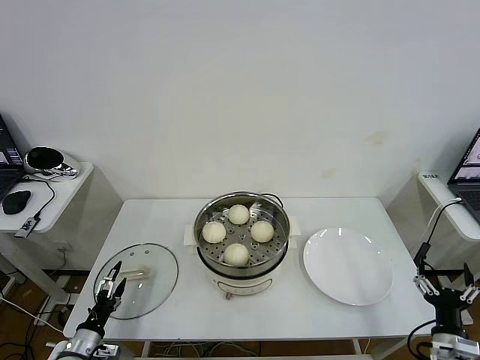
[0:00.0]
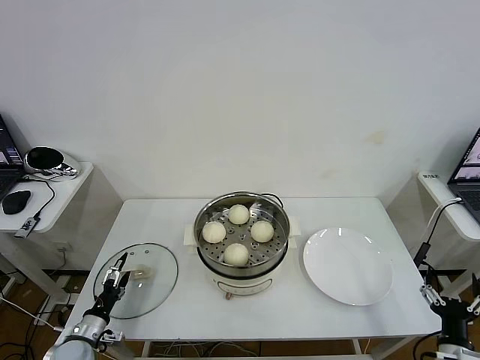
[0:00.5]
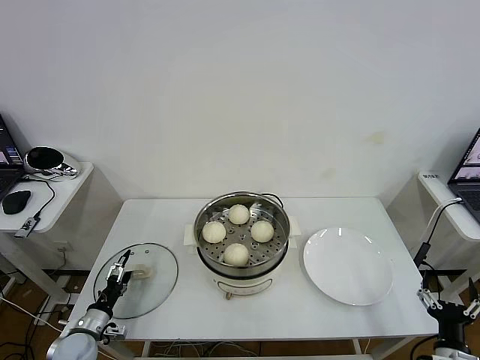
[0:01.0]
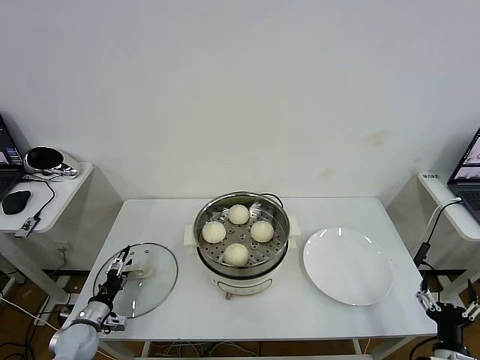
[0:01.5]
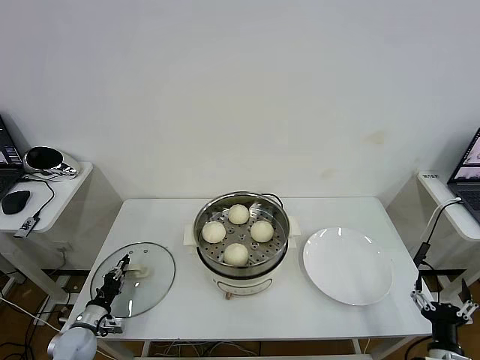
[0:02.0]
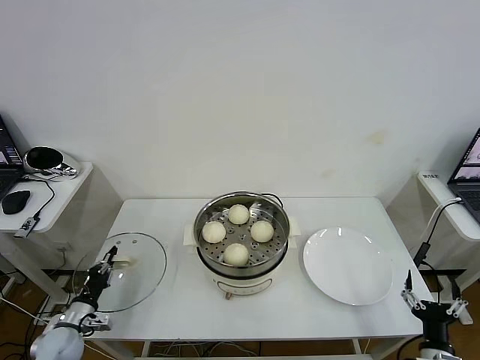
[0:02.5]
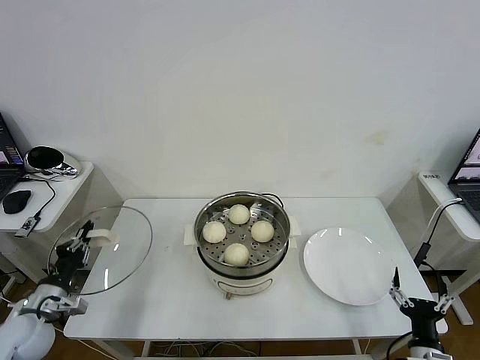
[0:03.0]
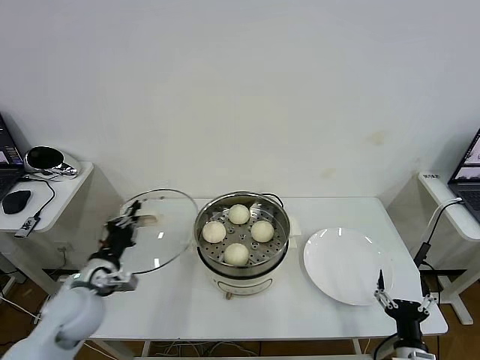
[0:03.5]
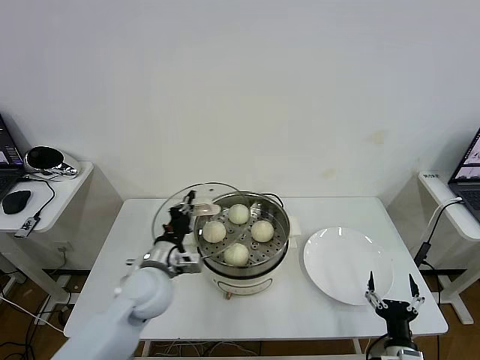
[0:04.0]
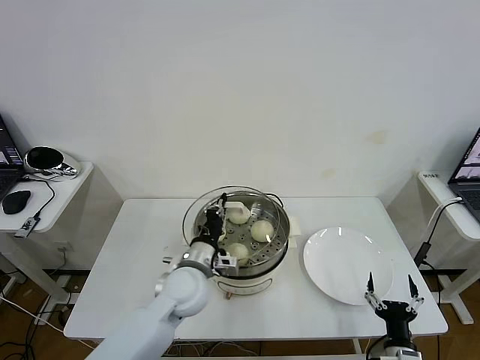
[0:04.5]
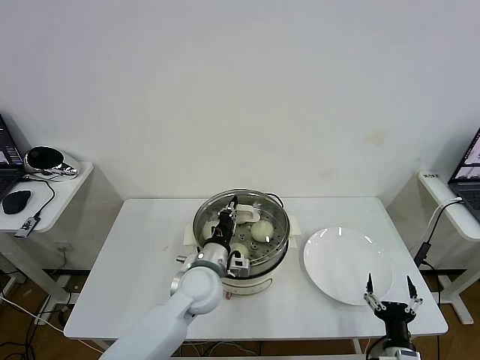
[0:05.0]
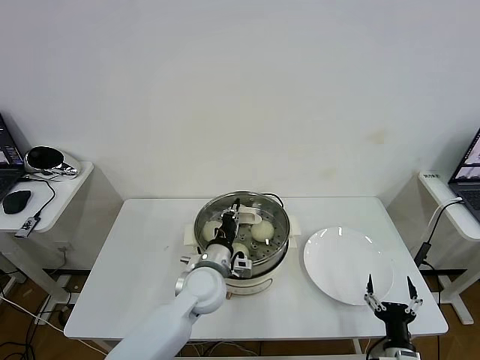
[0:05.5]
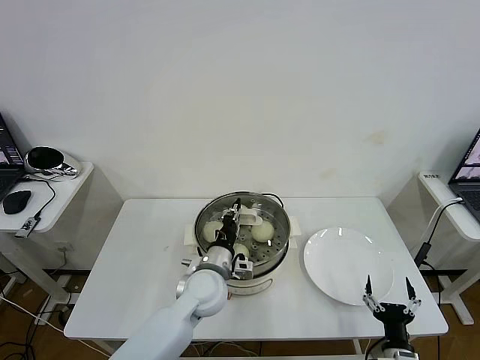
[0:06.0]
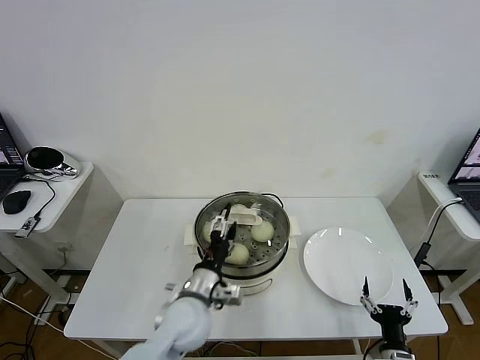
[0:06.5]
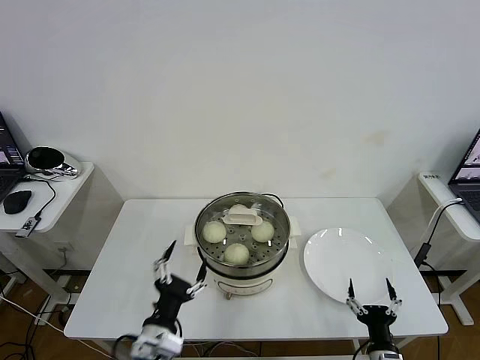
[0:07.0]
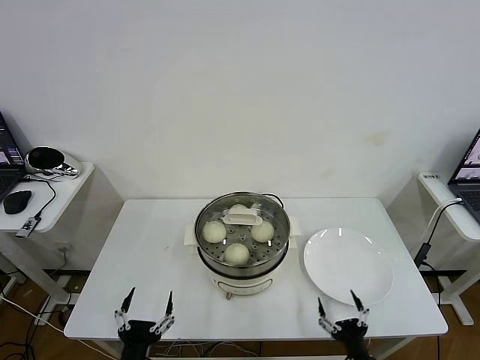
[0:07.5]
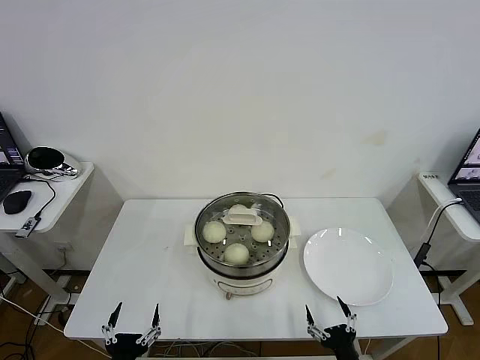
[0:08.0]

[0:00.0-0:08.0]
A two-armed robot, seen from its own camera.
Task of the whole recording: take steamed baozi put them in steamer then cover it.
Step, 0:00.0 to 0:02.0: Grasp the pot lid with left gripper.
Step, 0:02.5 to 0:06.5: Place the pot lid on the steamer with left gripper.
0:00.0 to 0:02.0: The left gripper goes approximately 10 cm forward, and closes its fingers.
0:02.0 to 0:04.0: The left gripper travels to the right and upward by approximately 30 cm; the right gripper shifts roughly 5 cm to the left.
0:04.0 to 0:06.0: The left gripper travels to the right by some 10 cm.
0:06.0 to 0:08.0: The left gripper travels backward and to the left by approximately 30 cm, and opens up. The right gripper moves to the left, about 5 cm.

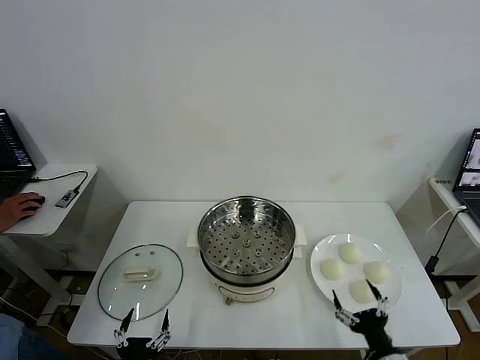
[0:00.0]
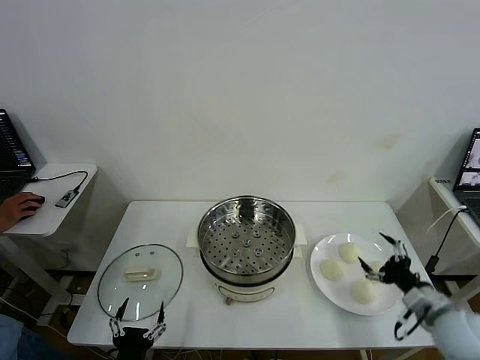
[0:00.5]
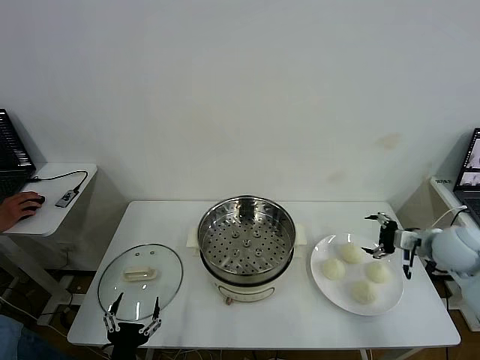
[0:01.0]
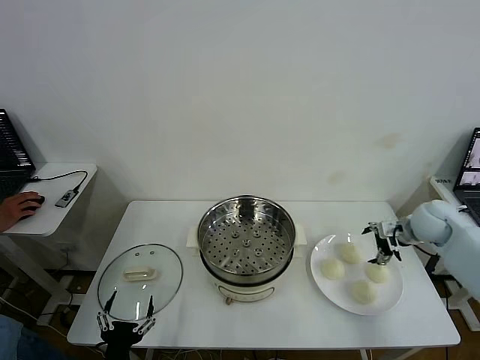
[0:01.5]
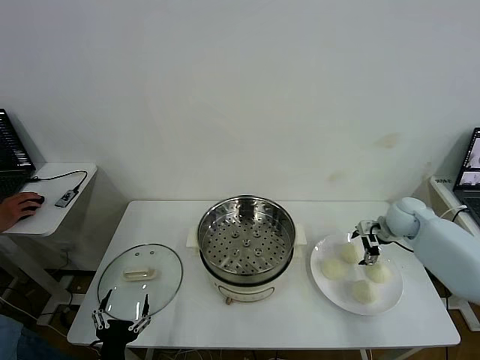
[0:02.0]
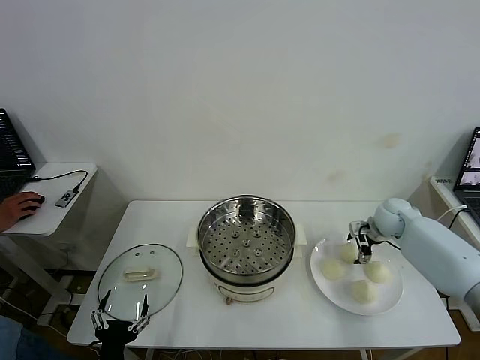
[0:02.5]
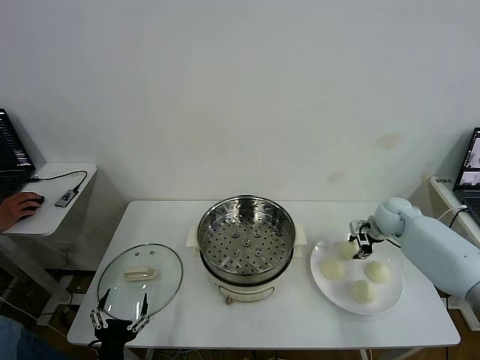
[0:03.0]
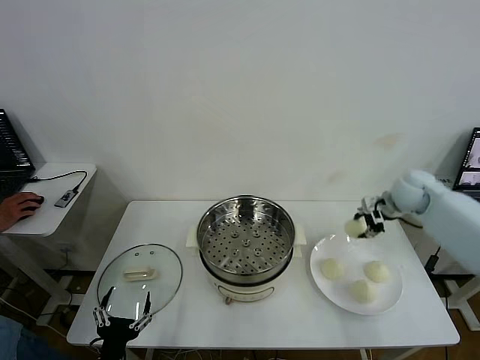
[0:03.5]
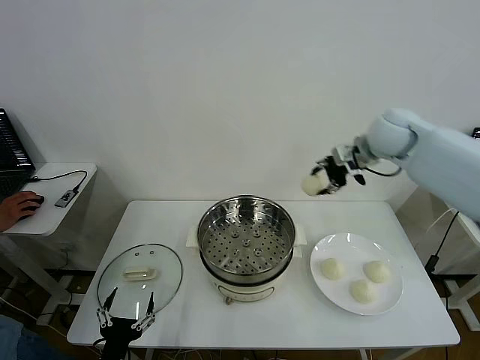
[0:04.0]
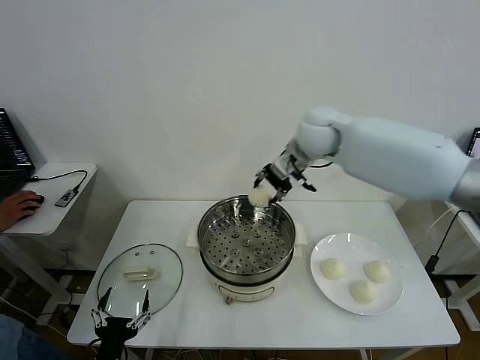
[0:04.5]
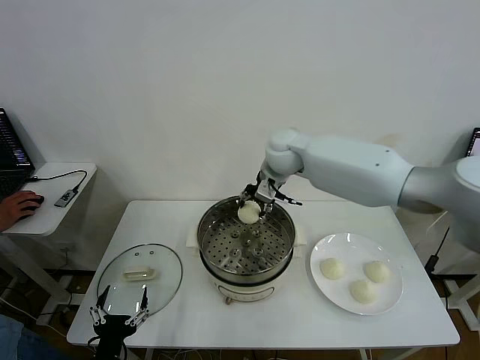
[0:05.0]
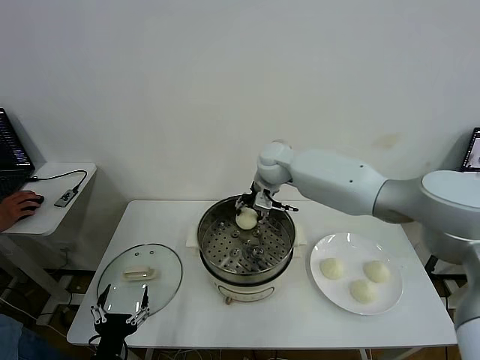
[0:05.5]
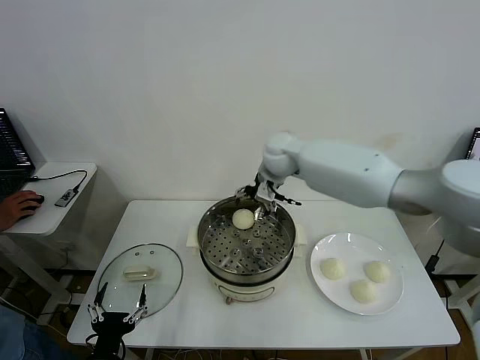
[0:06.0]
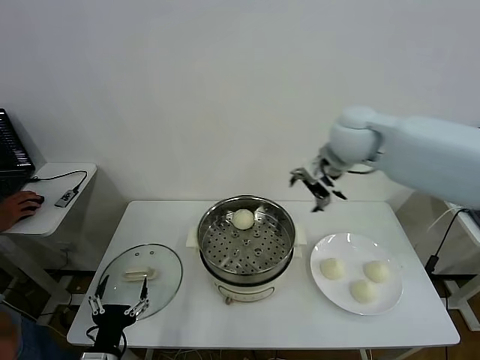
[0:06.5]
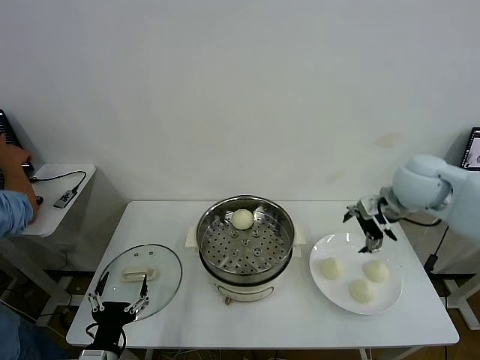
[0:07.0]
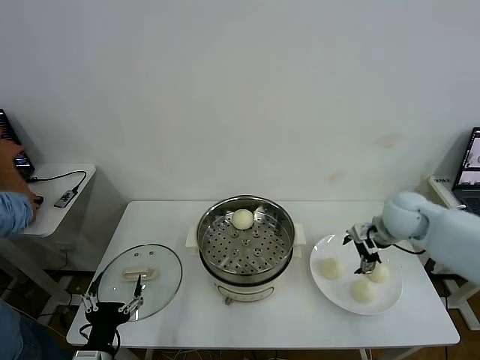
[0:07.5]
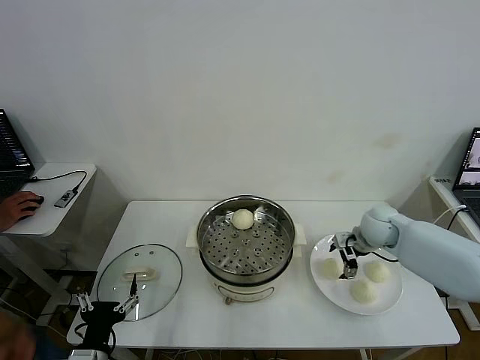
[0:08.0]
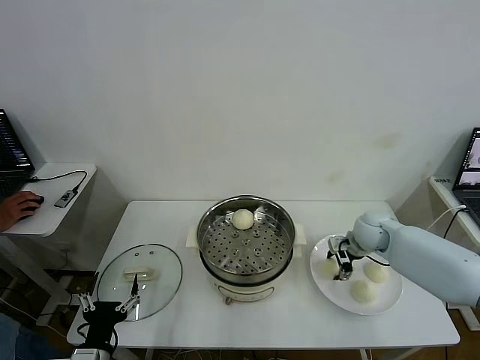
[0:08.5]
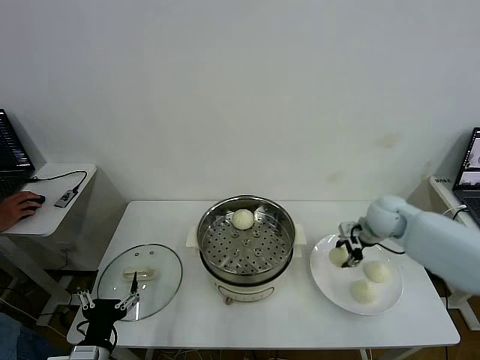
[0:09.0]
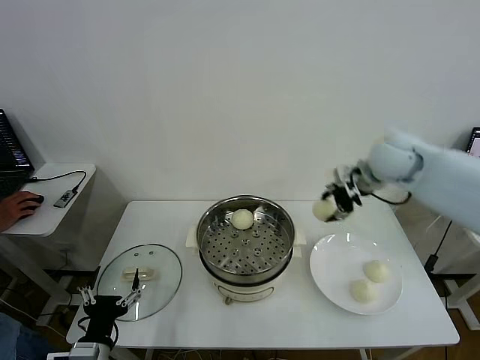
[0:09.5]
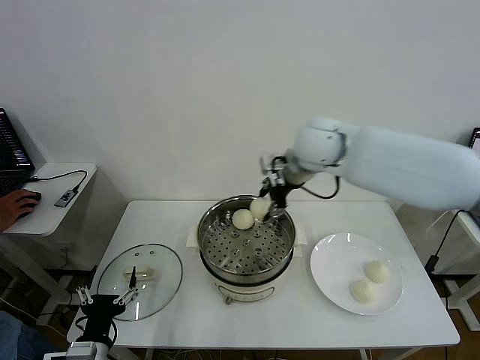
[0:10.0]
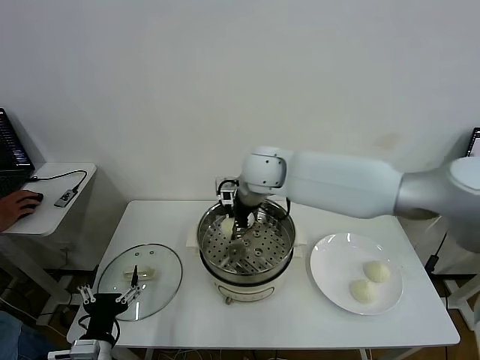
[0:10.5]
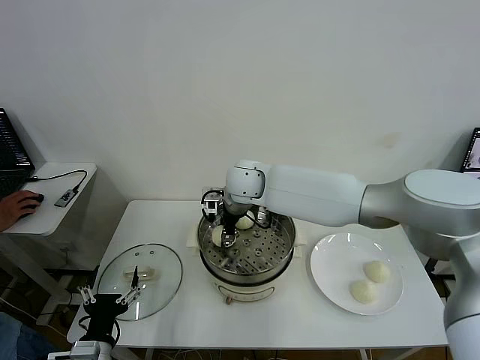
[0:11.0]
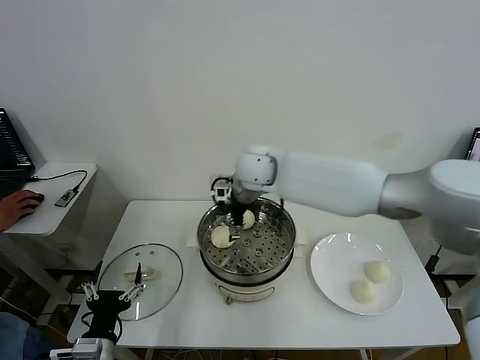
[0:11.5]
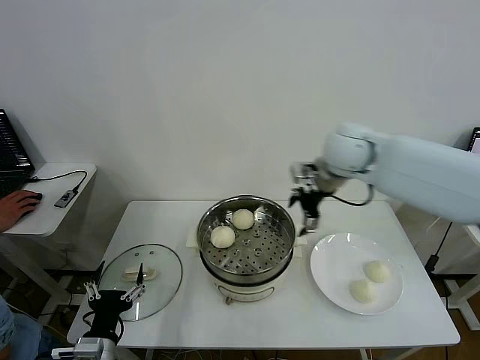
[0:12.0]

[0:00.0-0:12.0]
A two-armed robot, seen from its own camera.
Task of the whole recording: take steamed baozi put them in steamer then cover it.
Step, 0:00.0 to 0:02.5: Grasp the baozi in the plate with right gripper.
Step, 0:03.0 to 0:05.5: Place the baozi on the steamer with right gripper.
Step, 0:06.5 to 0:08.5: Grasp the baozi in the plate with right gripper.
Step, 0:09.0 to 0:11.0: Place the baozi on the steamer with right gripper.
0:02.0 to 0:04.0: The right gripper heads upward and to the left, covering roughly 30 cm, and closes up.
0:04.0 to 0:06.0: The right gripper heads to the left and downward, covering roughly 15 cm, and opens.
0:06.0 to 0:08.0: The right gripper heads to the right and downward, covering approximately 30 cm.
0:08.0 to 0:10.0: The right gripper shifts approximately 30 cm upward and to the left, and closes its fingers.
0:10.0 to 0:12.0: The right gripper heads to the right, covering roughly 10 cm, and opens its fingers.

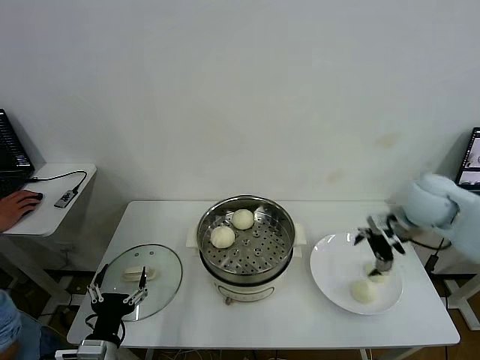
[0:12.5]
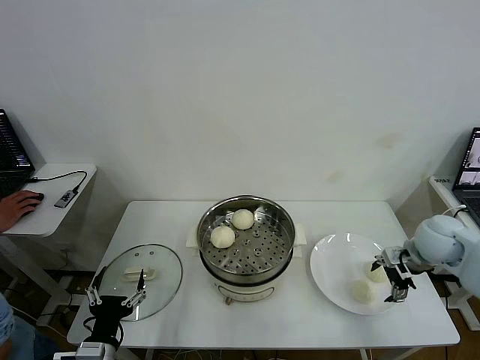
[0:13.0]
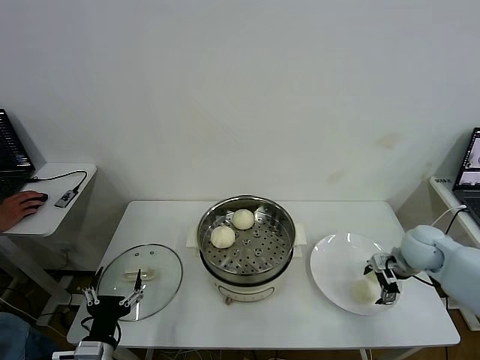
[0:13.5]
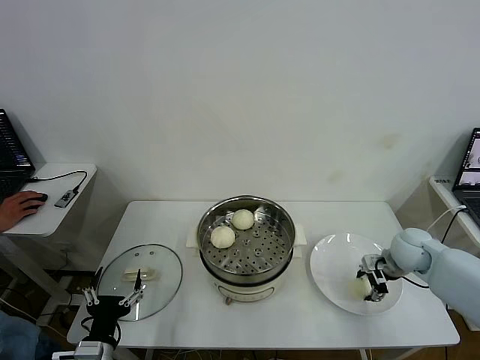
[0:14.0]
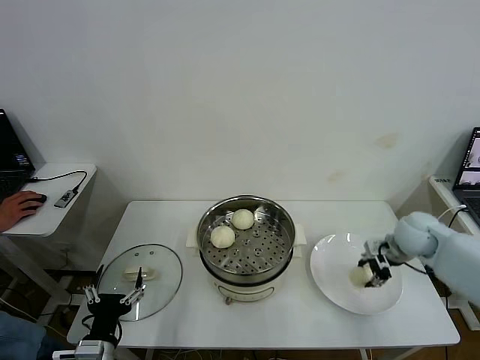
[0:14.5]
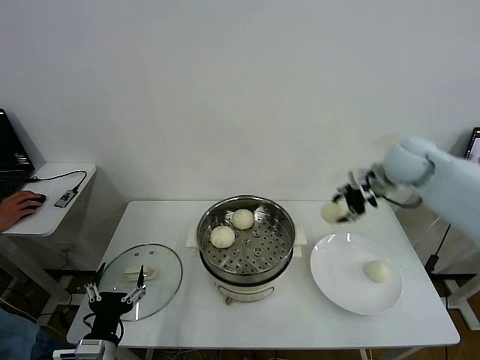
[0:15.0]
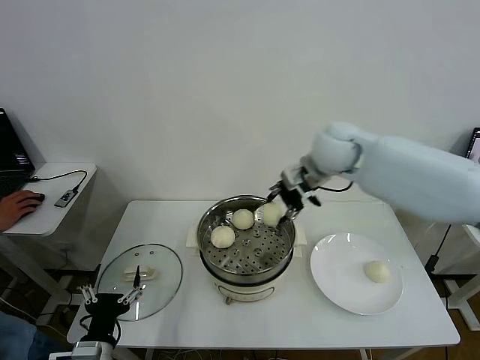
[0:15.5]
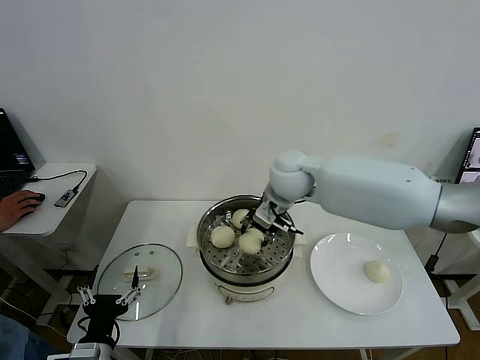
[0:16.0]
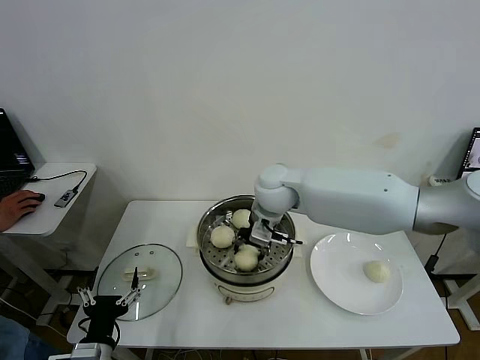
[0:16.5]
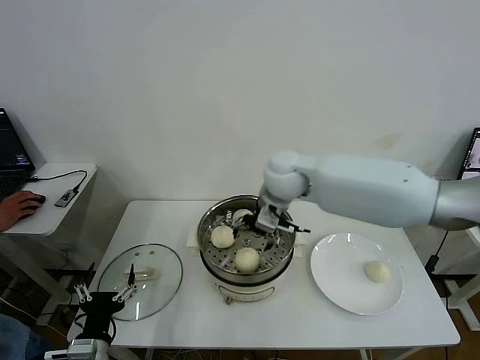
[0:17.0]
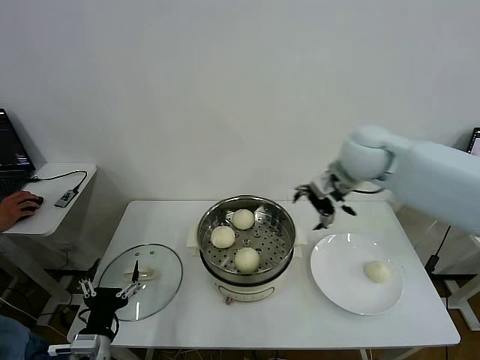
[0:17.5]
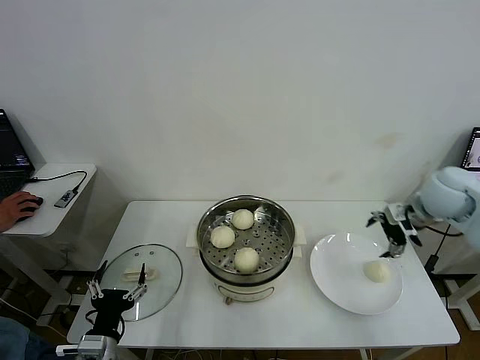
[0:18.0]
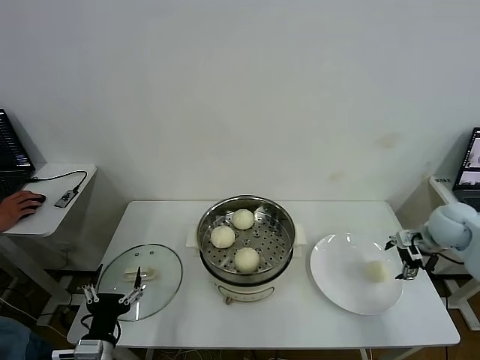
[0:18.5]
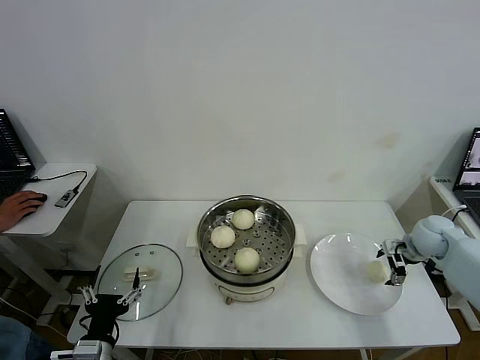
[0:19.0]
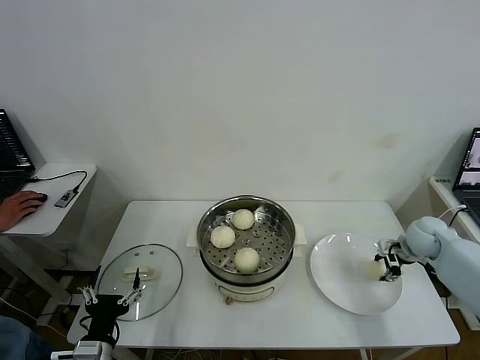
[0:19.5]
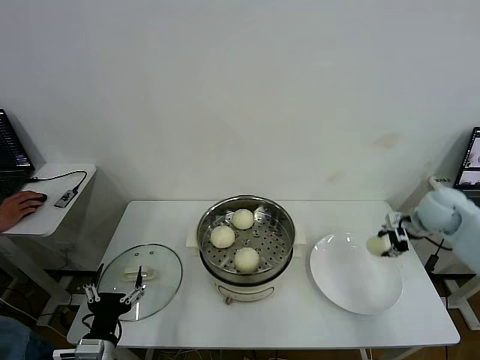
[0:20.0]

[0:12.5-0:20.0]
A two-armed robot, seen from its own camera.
Task of the whole recording: take steamed baozi put them in steamer then cover it.
Step, 0:12.5 to 0:14.0: Grasp the baozi in the plate with right gripper.
Step, 0:14.5 to 0:16.5: Place the baozi on the steamer with right gripper.
Step, 0:17.0 to 0:19.5: Grasp the baozi in the plate with right gripper.
0:12.5 to 0:14.5: The right gripper moves downward, approximately 10 cm, and closes up.
0:14.5 to 0:16.5: The right gripper moves to the left, some 35 cm.
0:16.5 to 0:18.0: The right gripper travels to the right by some 35 cm, and opens its fingers.
0:18.0 to 0:20.0: The right gripper is displaced downward by some 5 cm, and closes.
